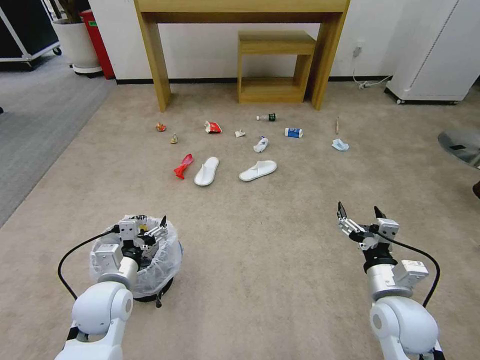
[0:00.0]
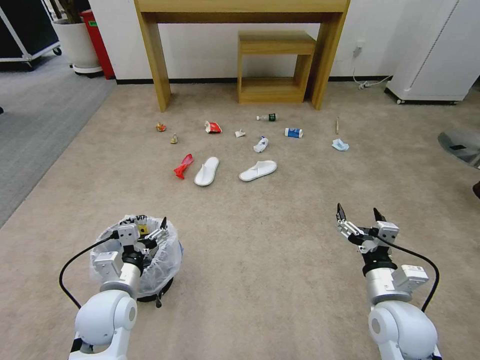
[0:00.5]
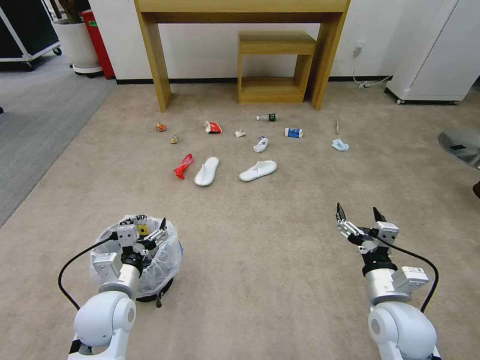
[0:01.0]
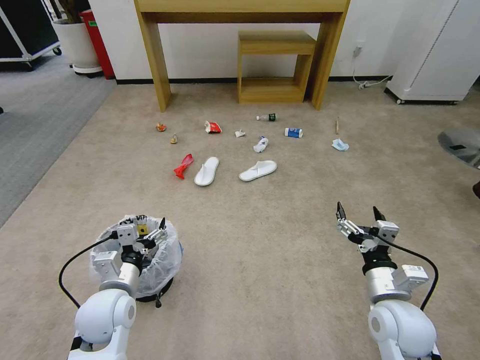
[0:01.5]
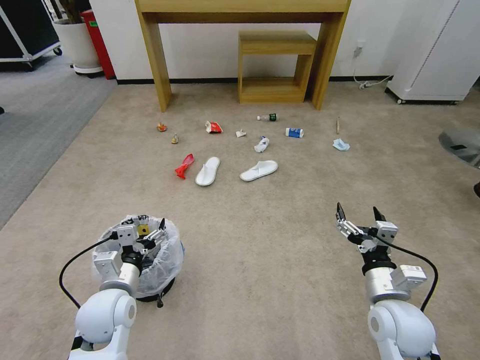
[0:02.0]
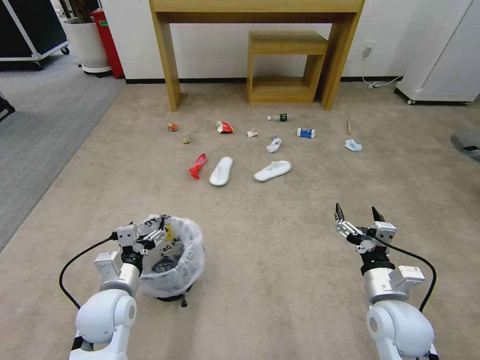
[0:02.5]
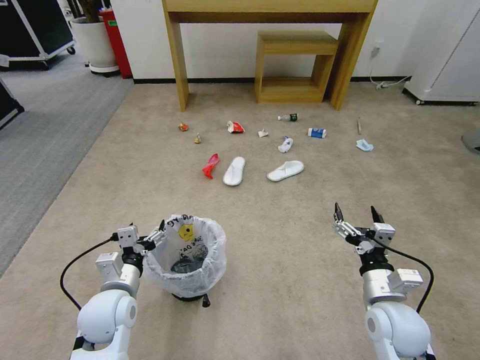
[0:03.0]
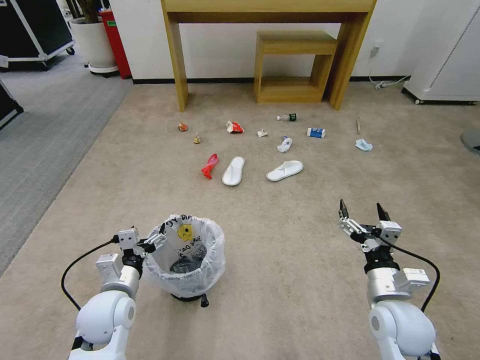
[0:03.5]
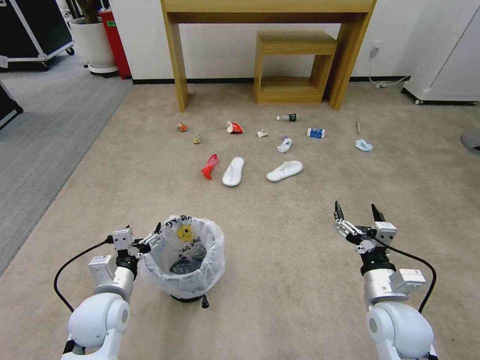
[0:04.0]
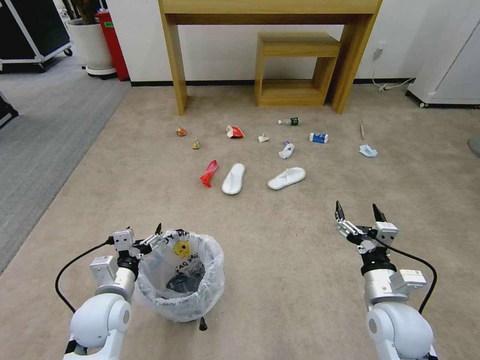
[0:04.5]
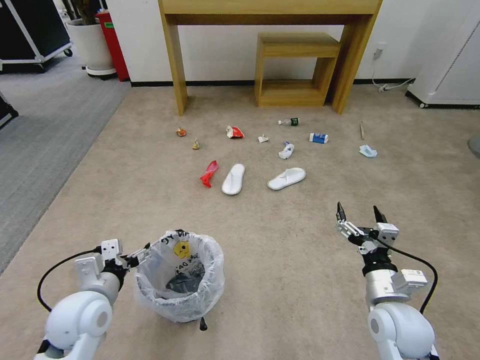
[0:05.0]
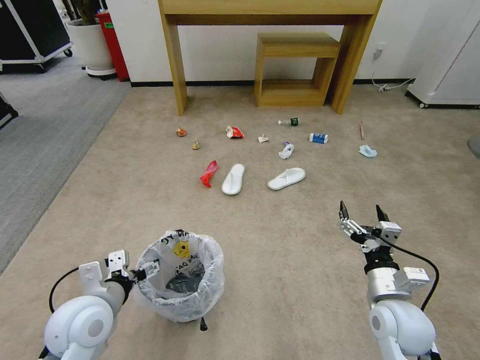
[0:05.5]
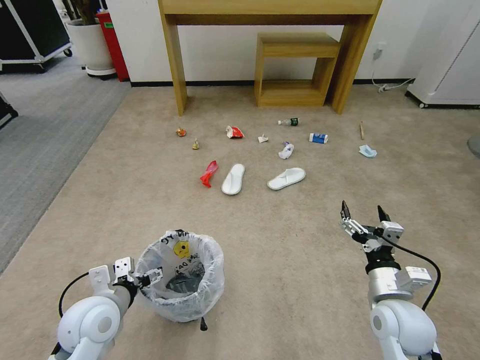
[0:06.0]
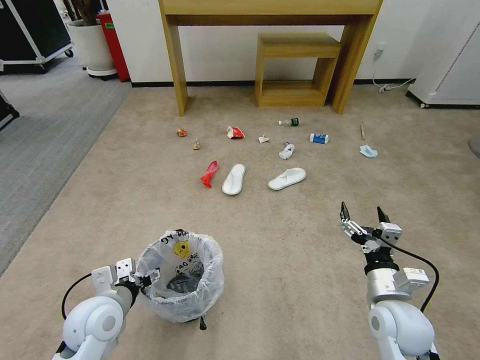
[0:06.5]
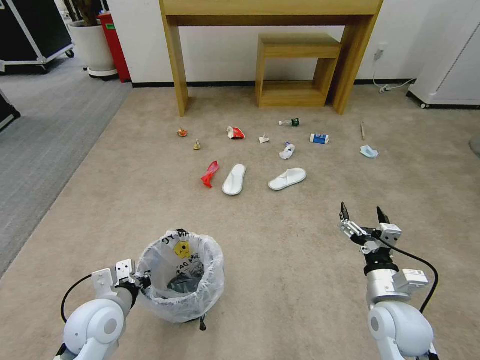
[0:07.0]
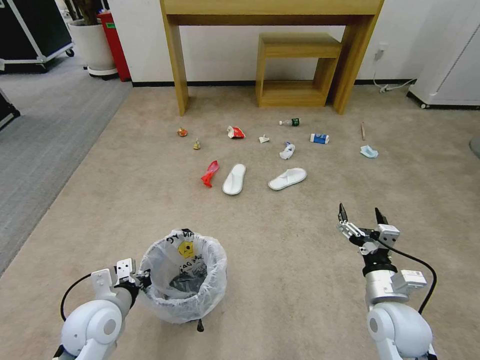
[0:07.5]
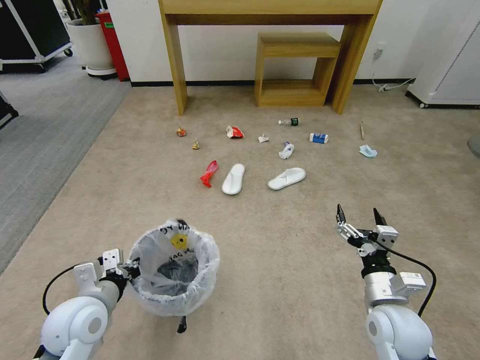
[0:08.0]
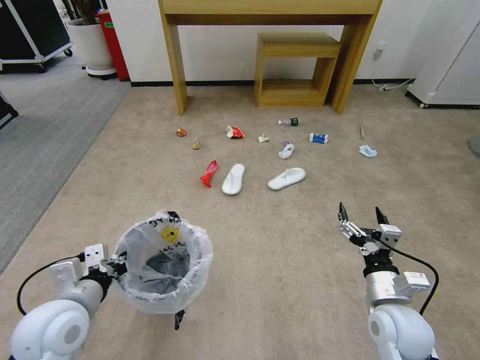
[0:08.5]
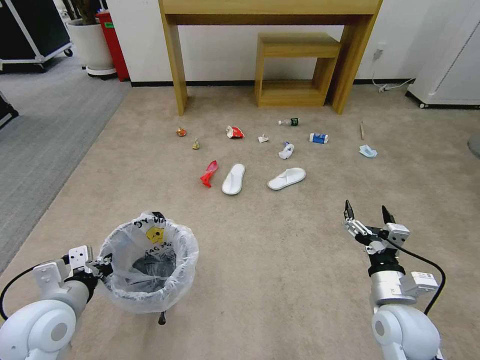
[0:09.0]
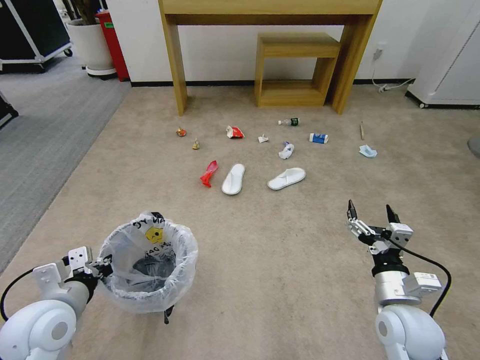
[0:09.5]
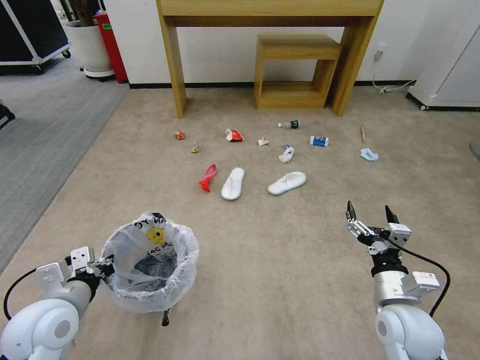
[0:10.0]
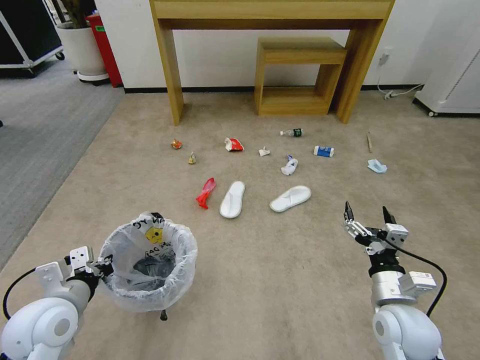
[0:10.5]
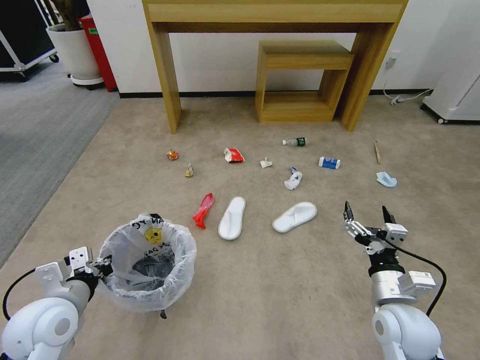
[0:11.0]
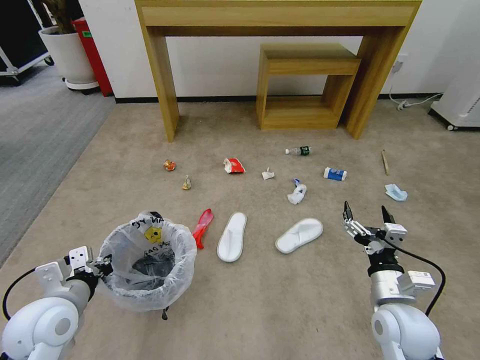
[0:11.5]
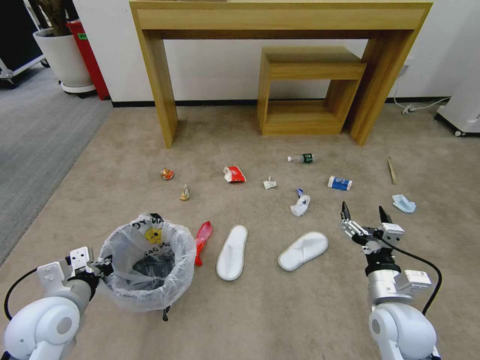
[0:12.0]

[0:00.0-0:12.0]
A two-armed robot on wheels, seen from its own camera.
Task of the whole recording: Pick up the trash bin and place the garbage on the floor into it.
0:06.0 to 0:08.0: The left gripper closes.
0:08.0 to 0:10.0: The grippers stay close to where they were, moving slightly.

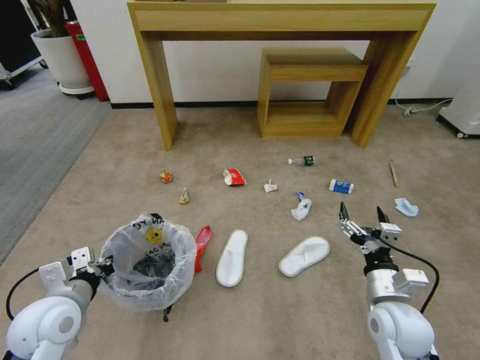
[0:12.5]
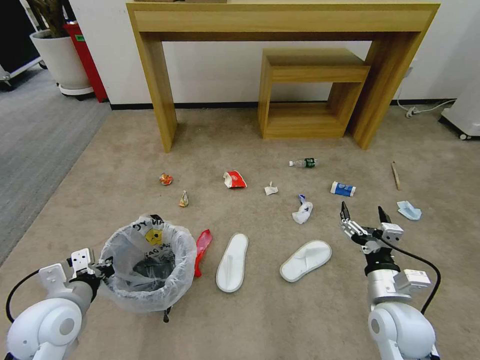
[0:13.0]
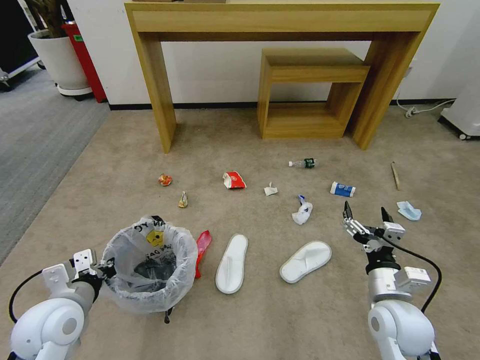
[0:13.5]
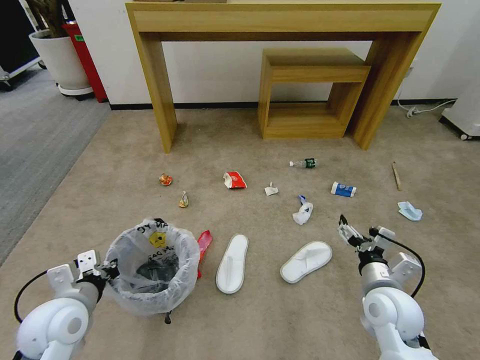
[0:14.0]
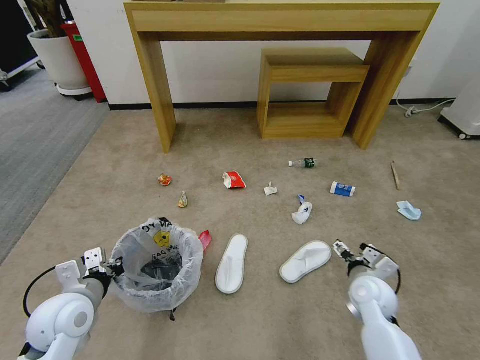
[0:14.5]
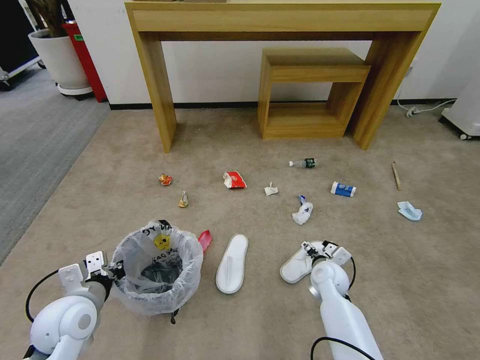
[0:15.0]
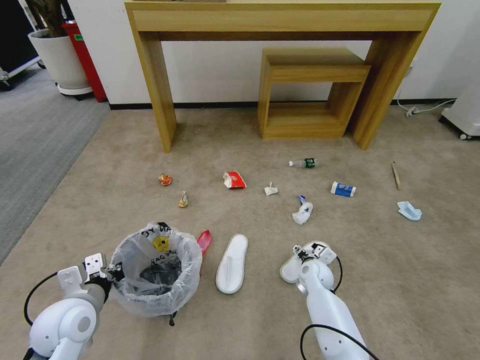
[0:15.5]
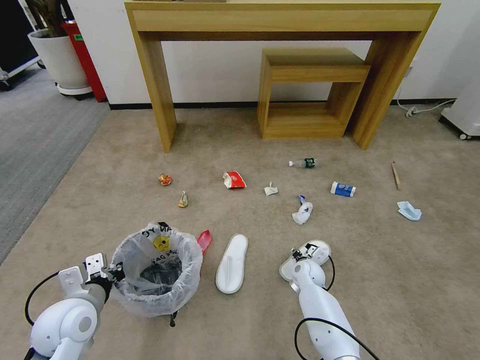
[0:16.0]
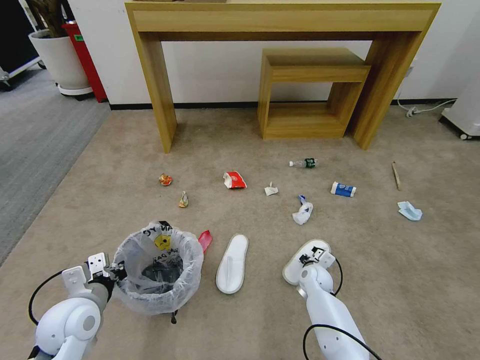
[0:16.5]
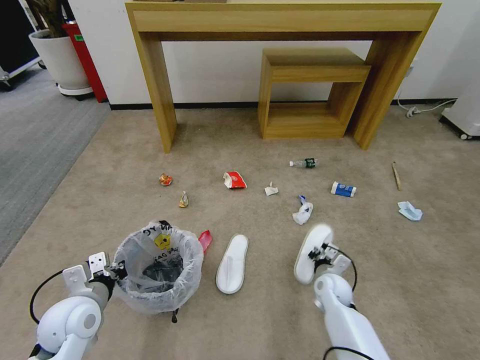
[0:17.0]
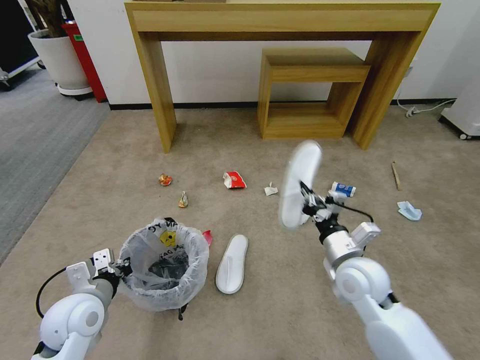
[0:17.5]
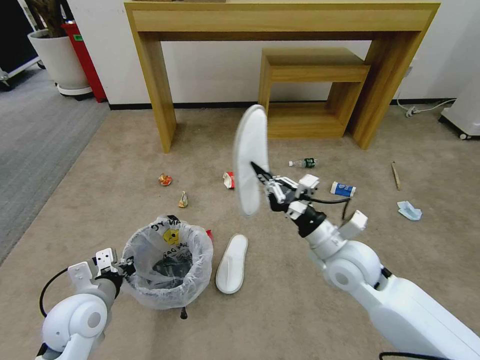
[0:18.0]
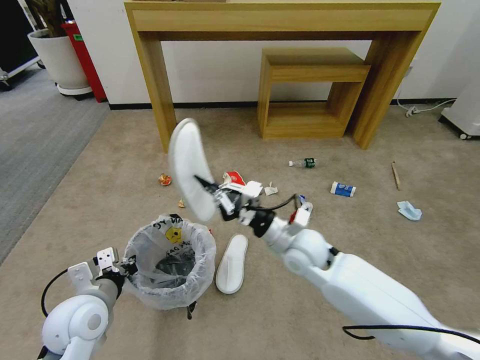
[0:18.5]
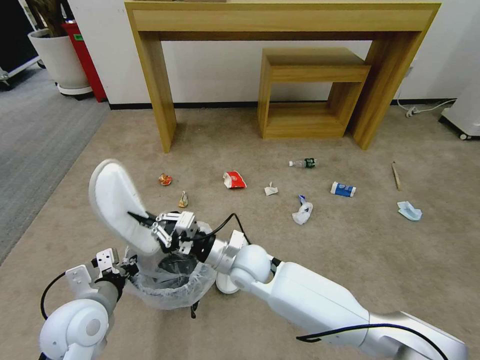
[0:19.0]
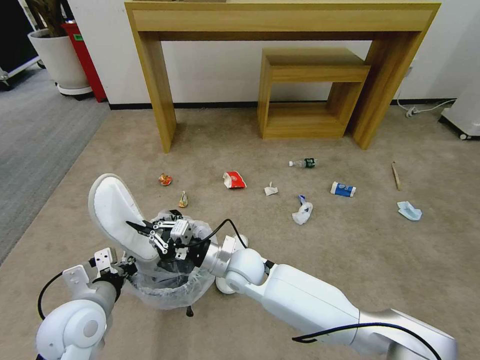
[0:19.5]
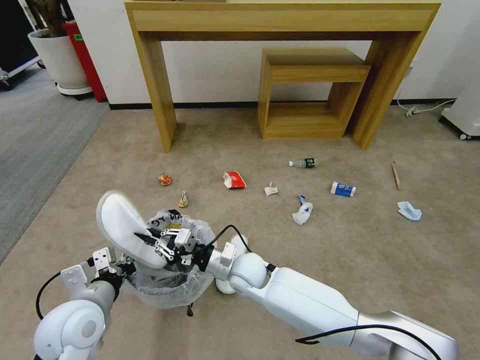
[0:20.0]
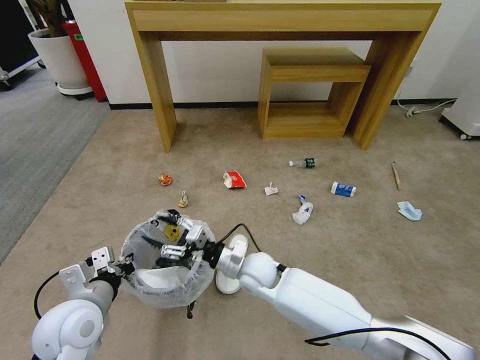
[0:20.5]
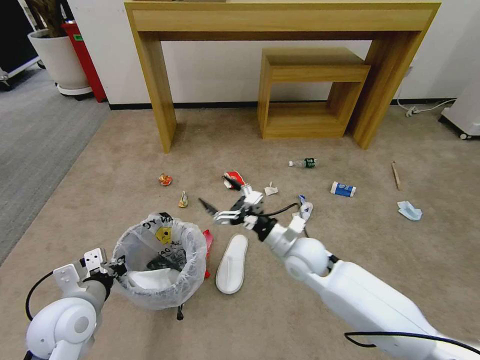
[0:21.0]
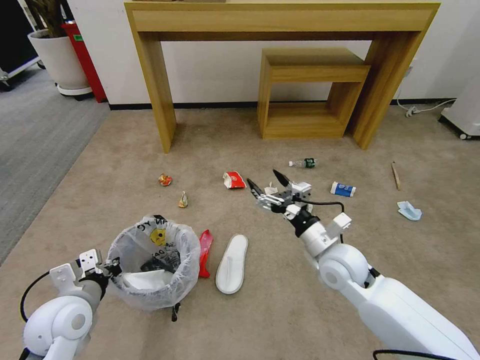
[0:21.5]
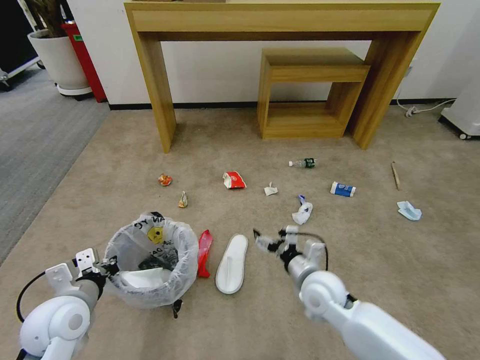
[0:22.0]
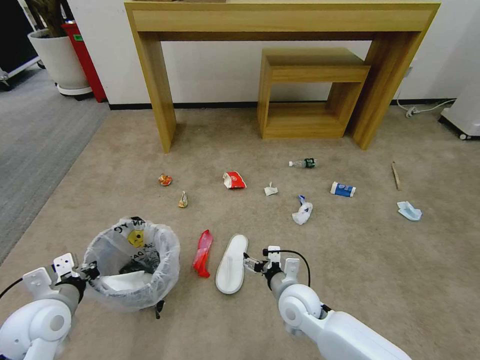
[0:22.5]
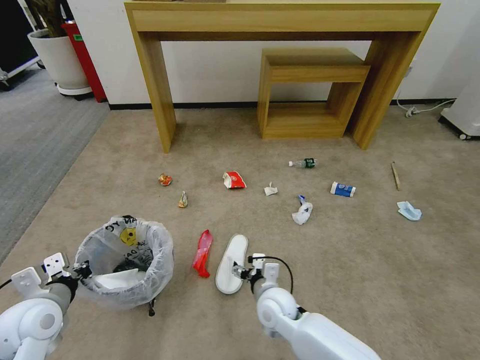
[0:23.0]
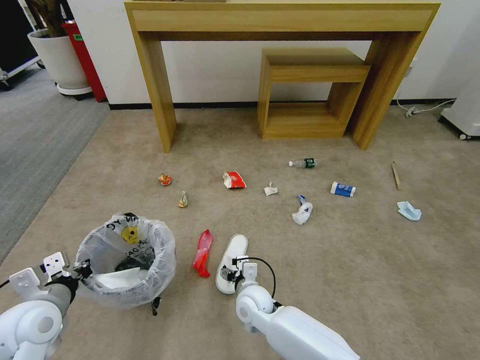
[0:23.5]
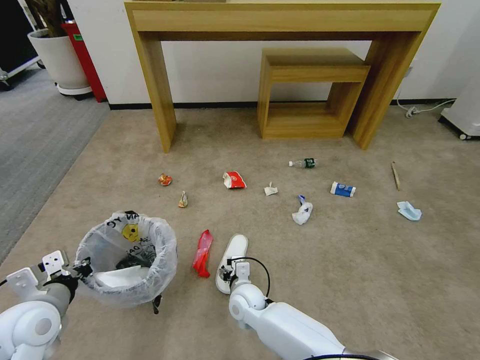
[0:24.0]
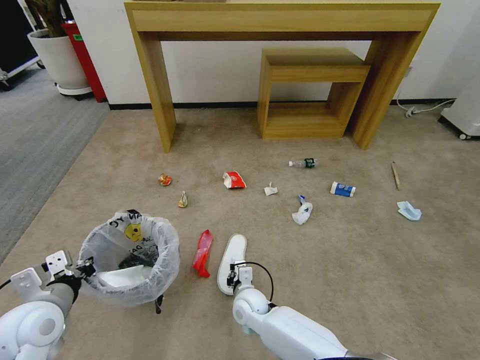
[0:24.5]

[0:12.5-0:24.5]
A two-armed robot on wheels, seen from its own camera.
Task of the whole recording: Pick up the trash bin and place the garbage on the floor into it.
0:12.5 to 0:14.5: The right gripper is displaced forward and downward by roughly 10 cm.
0:14.5 to 0:16.5: The right gripper goes some 15 cm downward, forward and to the left, and closes its fingers.
0:16.5 to 0:18.5: The right gripper heads upward and to the left, covering some 25 cm.
0:18.5 to 0:20.5: The right gripper moves to the left and downward, approximately 15 cm, and opens its fingers.
0:20.5 to 0:22.5: The right gripper heads to the right and backward, covering approximately 10 cm, while the left gripper moves to the left, some 5 cm.
0:22.5 to 0:24.5: The right gripper goes roughly 15 cm to the left and downward, and closes up.

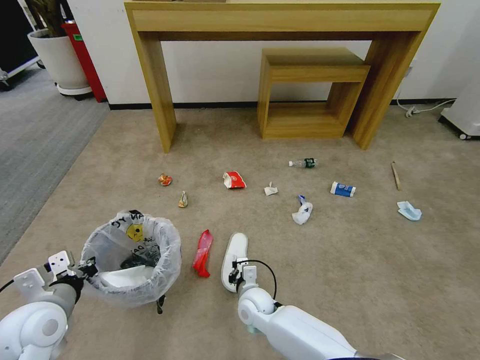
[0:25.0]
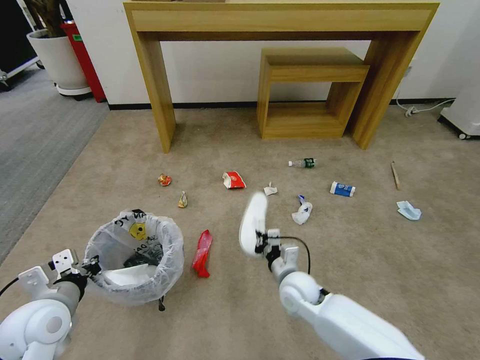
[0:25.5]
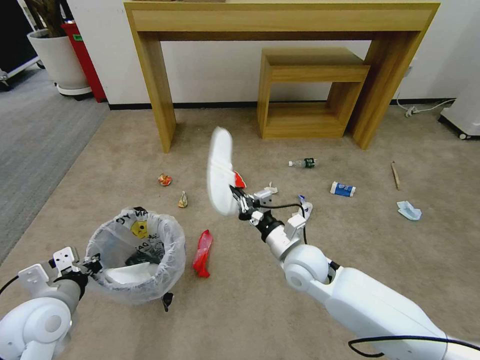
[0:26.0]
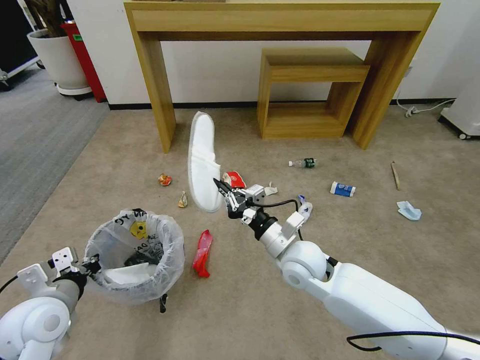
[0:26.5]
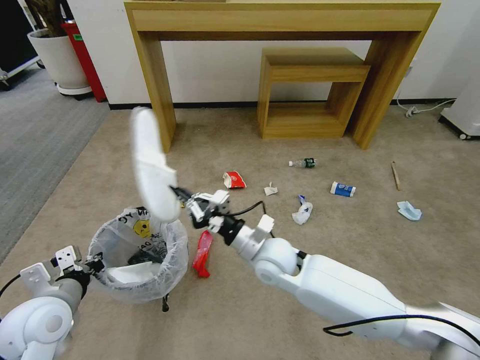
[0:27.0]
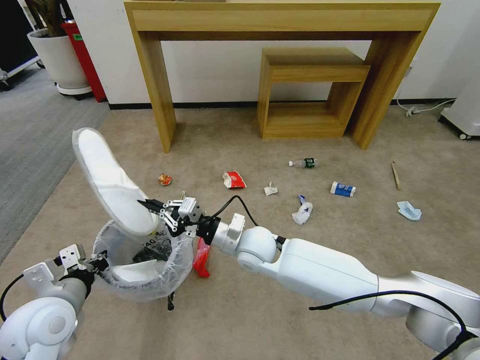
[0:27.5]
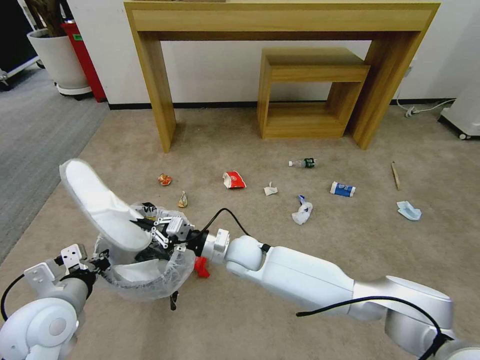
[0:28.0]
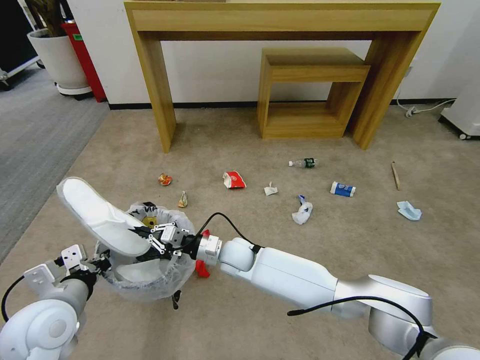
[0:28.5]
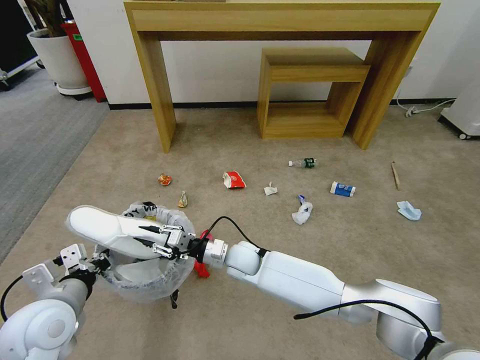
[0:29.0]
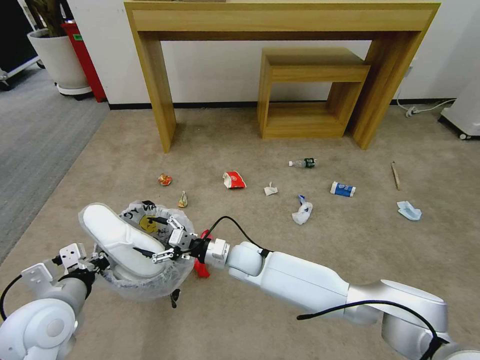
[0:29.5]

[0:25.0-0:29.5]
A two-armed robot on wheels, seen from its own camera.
Task of the whole recording: Pick up the trash bin and place the garbage on the floor into it.
0:25.0 to 0:27.0: The right gripper heads upward, covering about 20 cm.
0:27.0 to 0:29.5: The right gripper shifts approximately 10 cm downward and to the left, and opens up.
